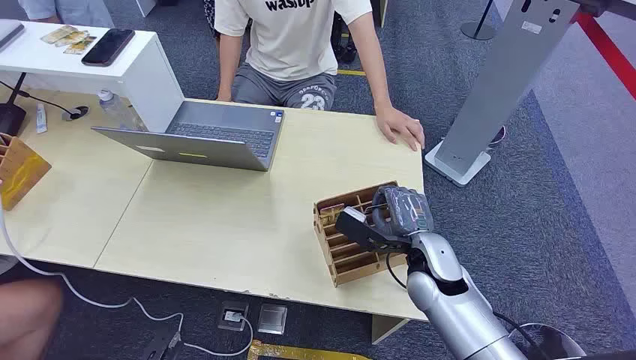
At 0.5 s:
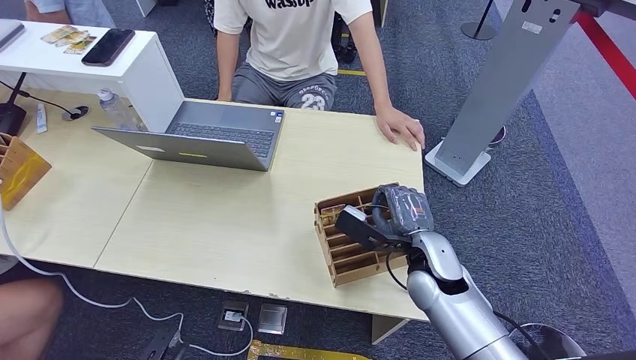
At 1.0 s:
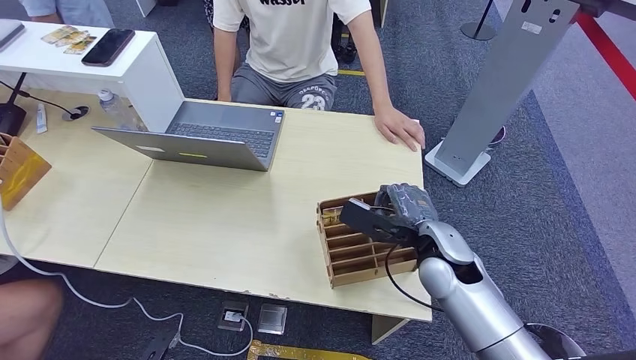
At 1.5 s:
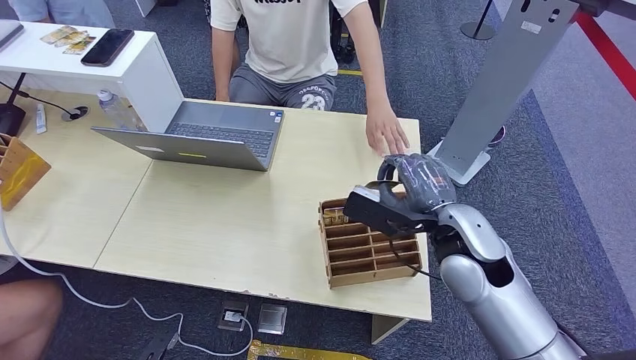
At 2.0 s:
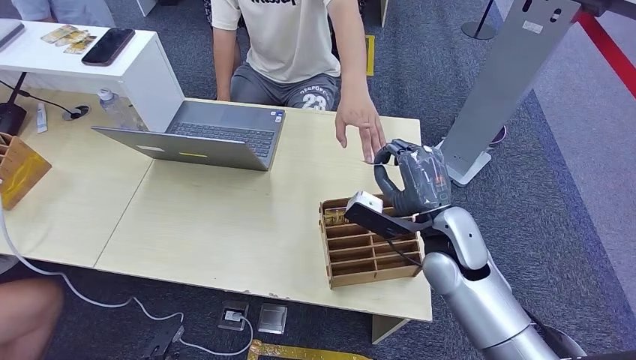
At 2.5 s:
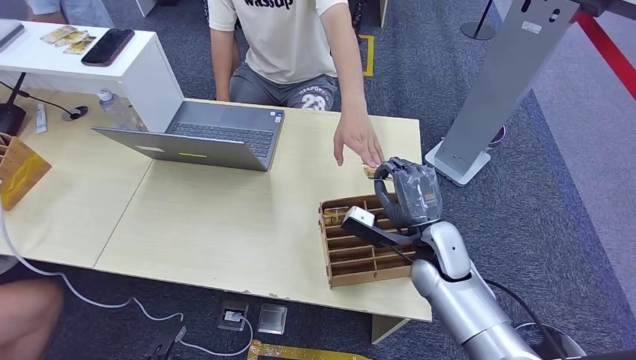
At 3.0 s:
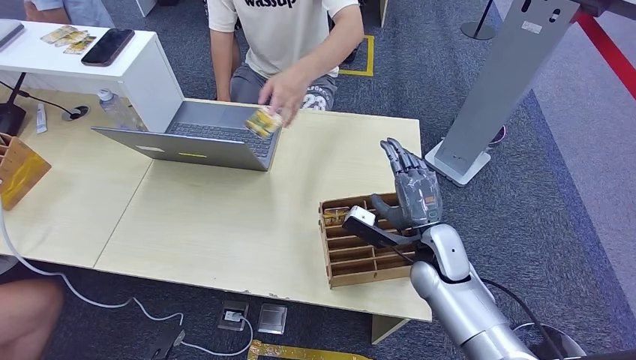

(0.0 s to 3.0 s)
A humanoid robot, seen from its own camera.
Step, 0.0 s - 1.5 s: Pick up the room card from the card holder.
Step, 2.0 s - 3.0 s: Hand the room card to the target.
1.5 s - 3.0 s: The right hand is displaced downward by about 10 cm.
